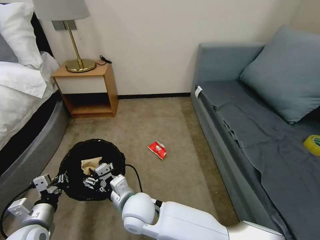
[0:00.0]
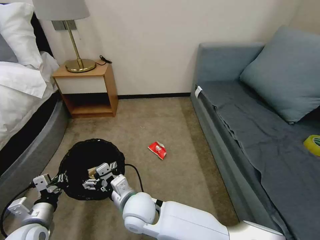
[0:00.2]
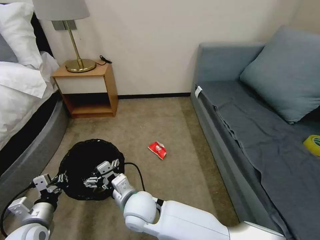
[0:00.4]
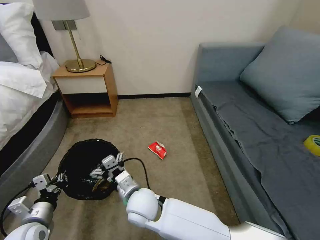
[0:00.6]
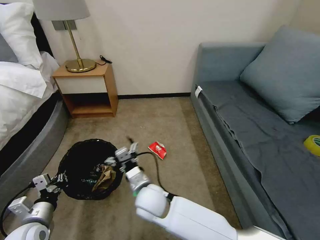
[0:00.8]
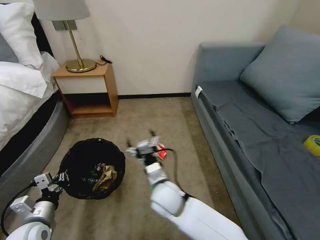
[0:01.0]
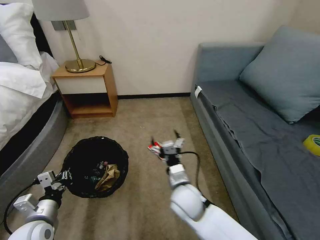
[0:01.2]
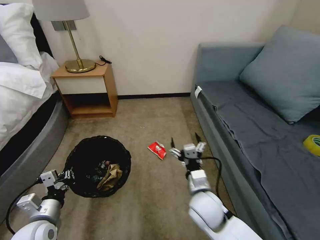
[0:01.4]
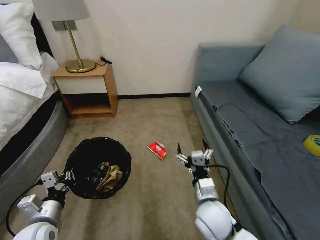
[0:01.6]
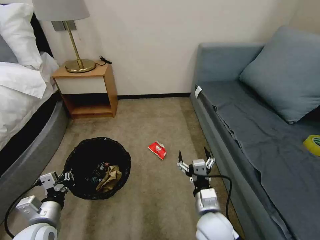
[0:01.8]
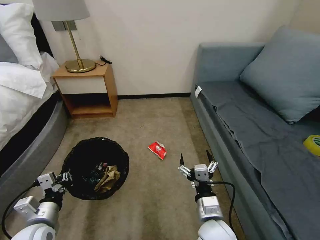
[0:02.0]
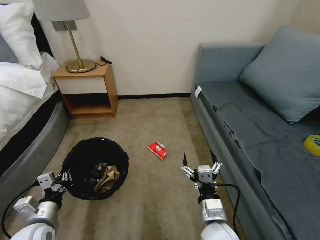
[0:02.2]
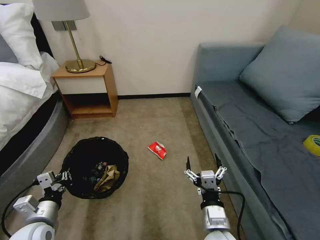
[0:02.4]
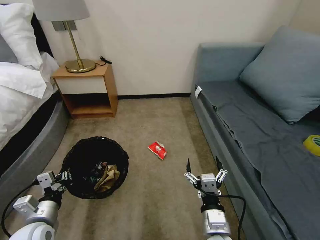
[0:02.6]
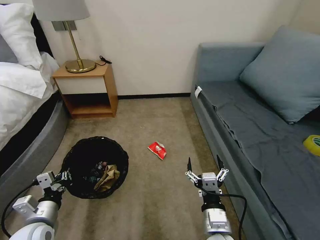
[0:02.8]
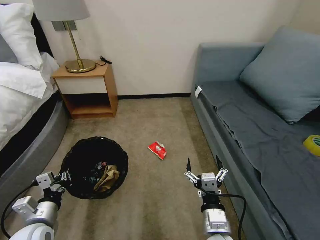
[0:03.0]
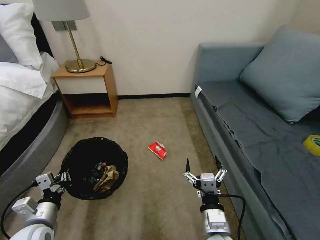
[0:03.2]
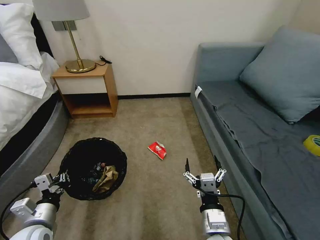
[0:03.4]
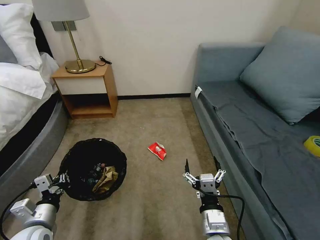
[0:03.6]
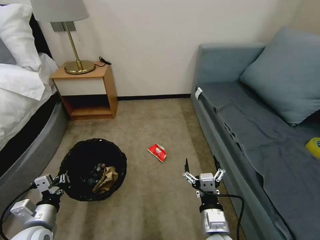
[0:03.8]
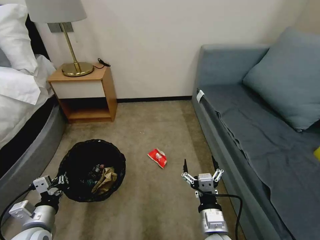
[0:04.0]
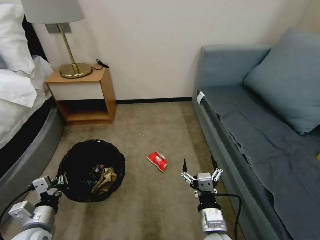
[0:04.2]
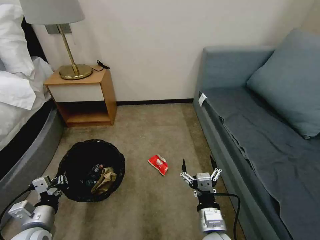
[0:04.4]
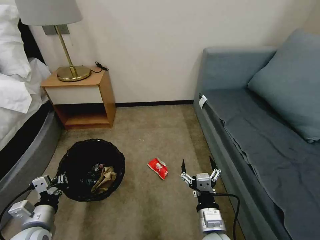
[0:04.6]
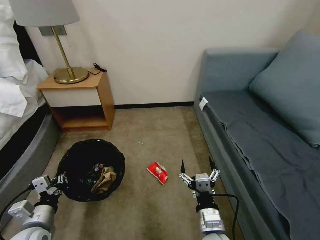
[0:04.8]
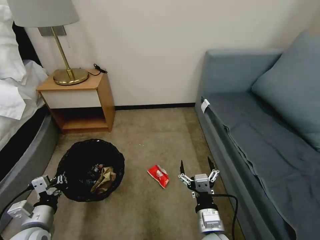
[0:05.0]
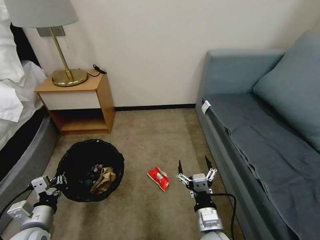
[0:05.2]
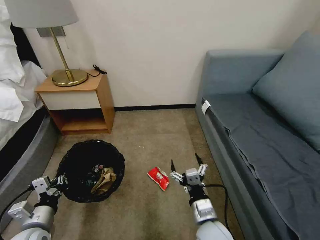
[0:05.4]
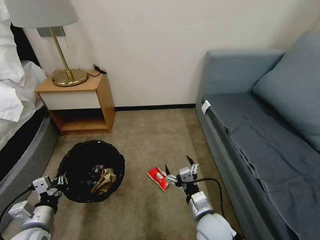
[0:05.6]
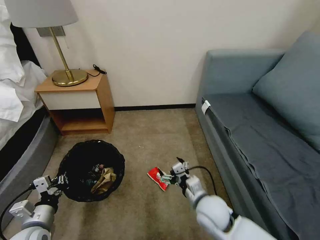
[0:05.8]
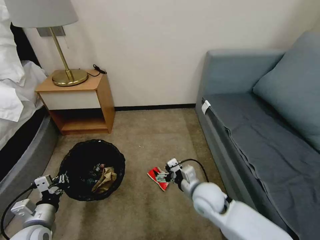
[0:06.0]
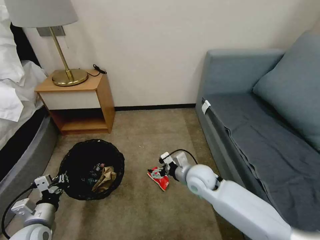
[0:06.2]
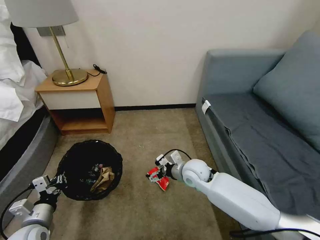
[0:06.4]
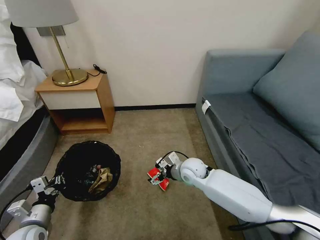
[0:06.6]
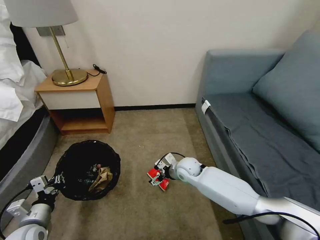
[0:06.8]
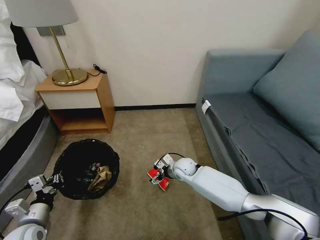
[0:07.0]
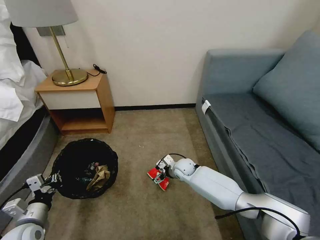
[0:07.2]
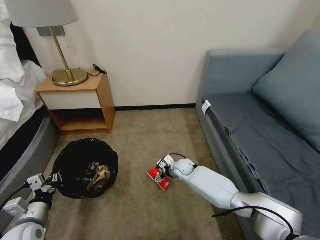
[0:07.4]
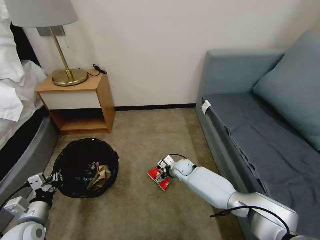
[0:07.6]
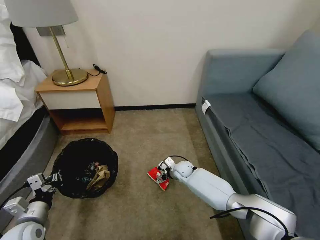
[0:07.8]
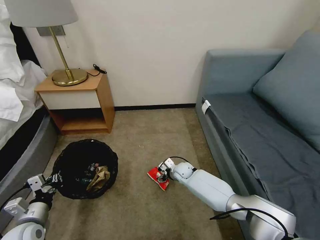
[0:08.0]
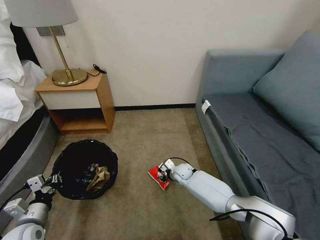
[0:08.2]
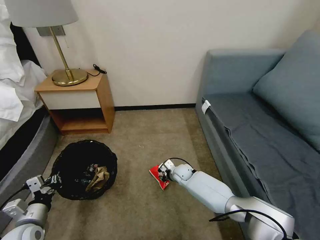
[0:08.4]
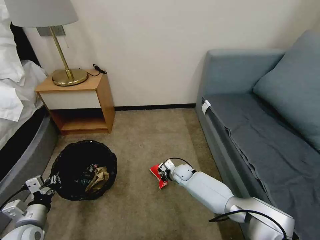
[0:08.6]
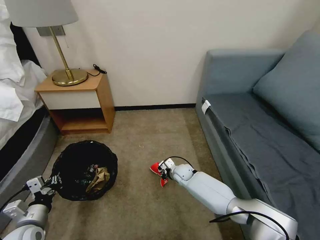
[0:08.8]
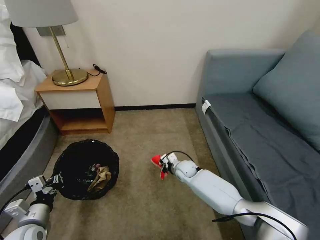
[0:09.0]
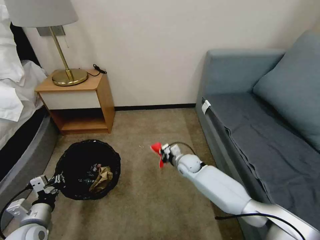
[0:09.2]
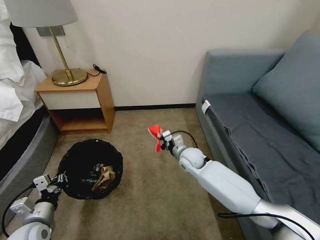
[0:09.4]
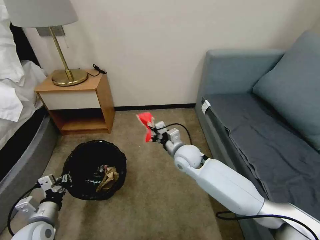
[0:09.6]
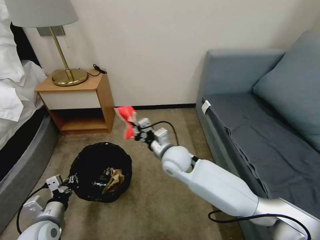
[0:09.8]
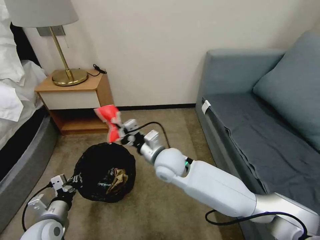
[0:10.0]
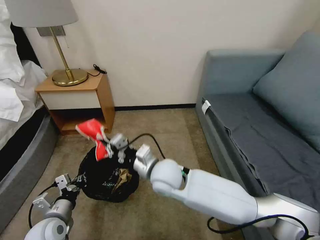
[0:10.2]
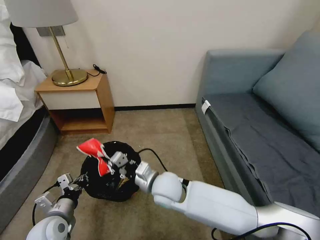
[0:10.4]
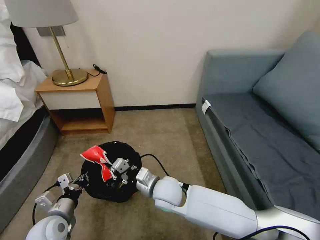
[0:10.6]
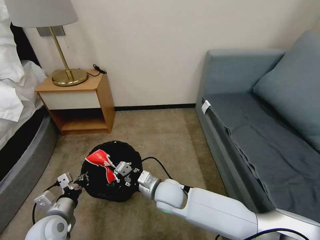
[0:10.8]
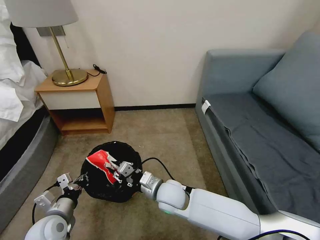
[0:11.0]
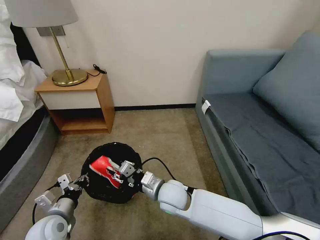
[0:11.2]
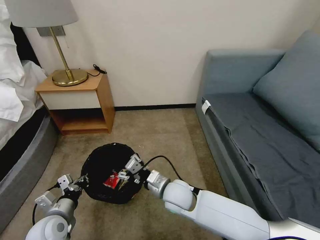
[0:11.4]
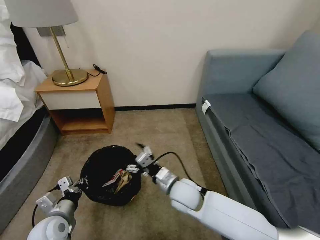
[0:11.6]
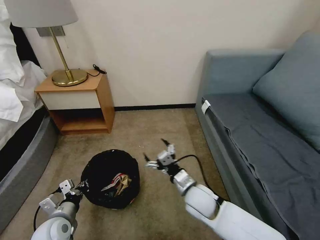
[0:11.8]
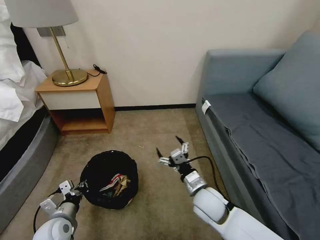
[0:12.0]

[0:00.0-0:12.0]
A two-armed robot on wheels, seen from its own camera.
Task of the whole recording: Pick up the trash bin, then pick up the garbage on the floor and place it into the trash bin.
0.0 to 1.6 s: The right gripper moves to the right, approximately 20 cm.
1.6 to 3.0 s: The right gripper heads backward, covering roughly 10 cm.
4.4 to 6.0 s: The right gripper goes approximately 15 cm forward.
6.0 to 7.6 s: The right gripper moves forward and downward, roughly 25 cm.
7.6 to 9.0 s: The right gripper closes up.
9.0 to 10.4 s: The left gripper travels to the right by approximately 5 cm; the right gripper travels upward, backward and to the left by approximately 25 cm.
10.4 to 12.0 s: The right gripper shifts roughly 15 cm to the right, and opens.

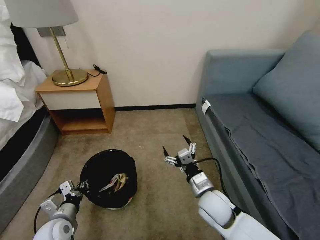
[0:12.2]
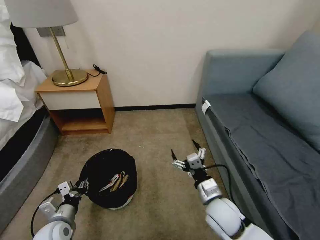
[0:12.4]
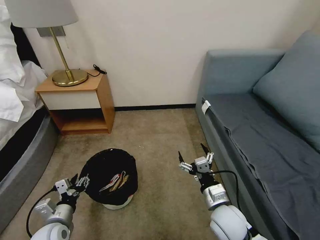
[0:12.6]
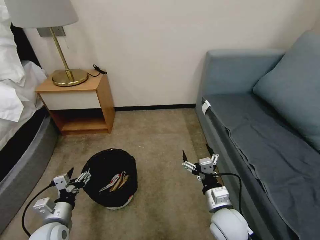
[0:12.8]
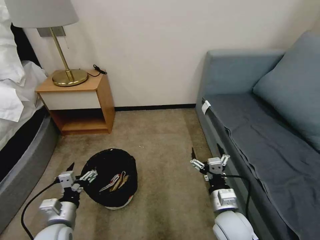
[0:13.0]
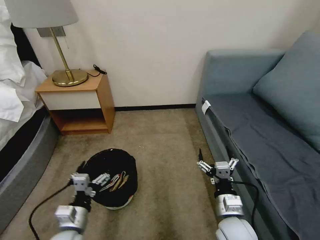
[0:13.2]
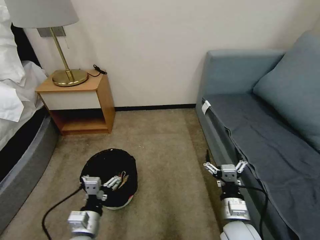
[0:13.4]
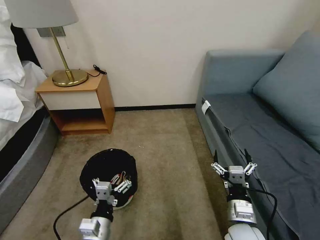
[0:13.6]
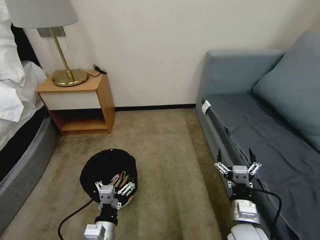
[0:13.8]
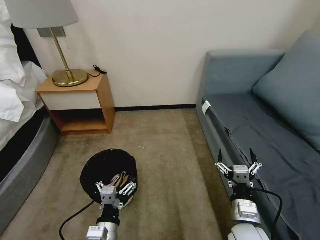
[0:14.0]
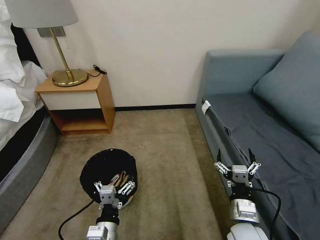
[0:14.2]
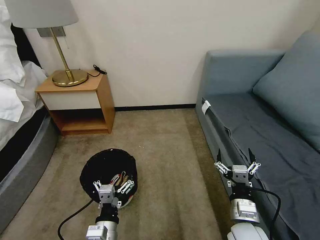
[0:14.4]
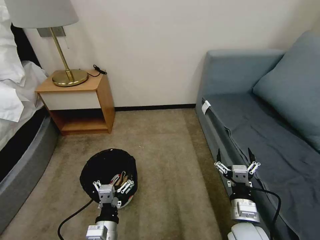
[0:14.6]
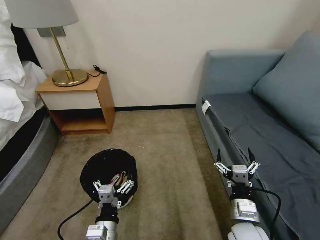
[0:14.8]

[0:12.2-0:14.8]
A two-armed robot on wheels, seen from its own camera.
Task of the whole recording: Pick up the trash bin, then pick up the garbage on the floor and place it into the trash bin.
12.2 to 13.4 s: The left gripper shifts roughly 15 cm to the right and backward, and opens its fingers, while the right gripper is displaced backward and to the right by some 10 cm.
13.4 to 14.8 s: The left gripper heads to the right, covering approximately 5 cm.

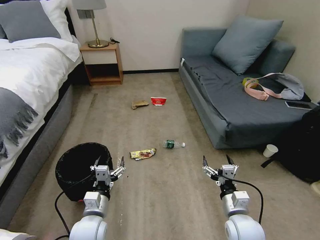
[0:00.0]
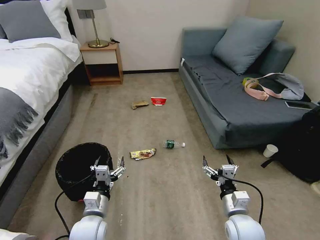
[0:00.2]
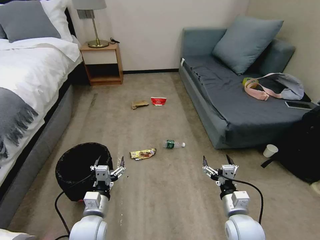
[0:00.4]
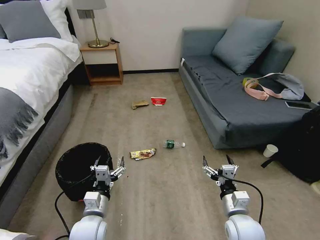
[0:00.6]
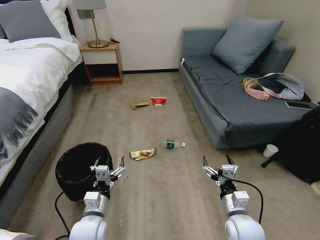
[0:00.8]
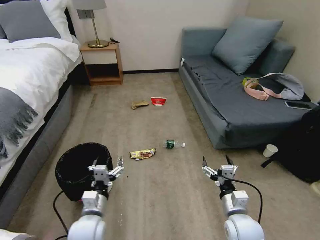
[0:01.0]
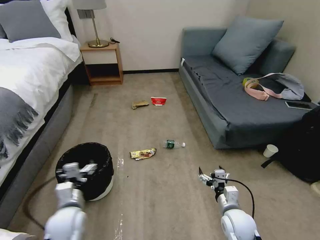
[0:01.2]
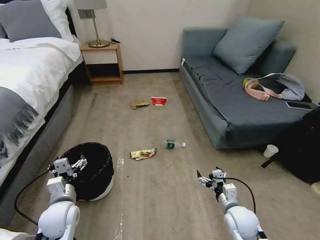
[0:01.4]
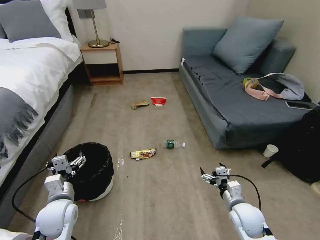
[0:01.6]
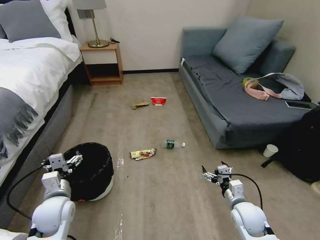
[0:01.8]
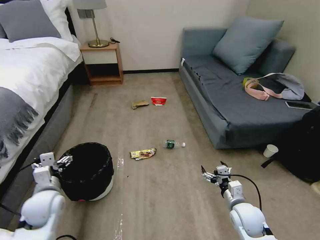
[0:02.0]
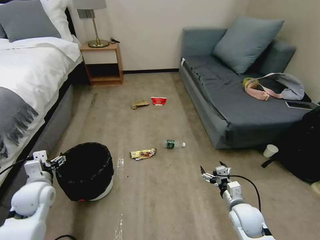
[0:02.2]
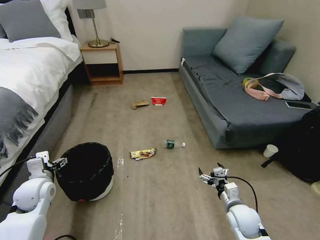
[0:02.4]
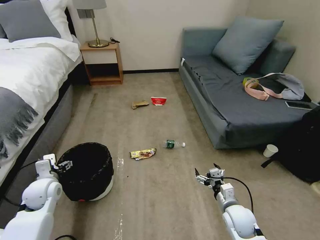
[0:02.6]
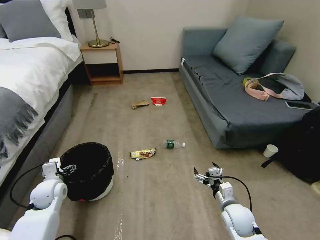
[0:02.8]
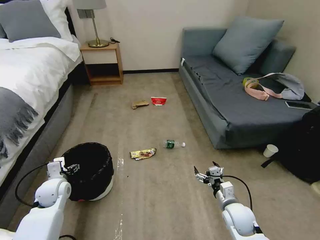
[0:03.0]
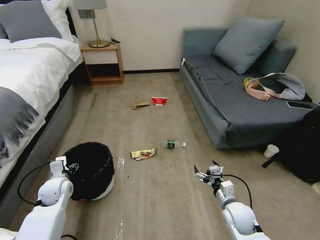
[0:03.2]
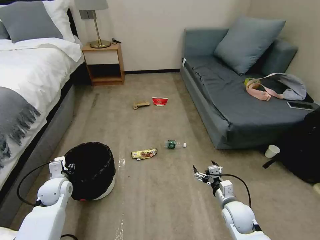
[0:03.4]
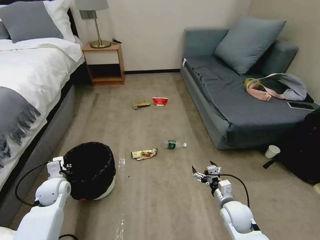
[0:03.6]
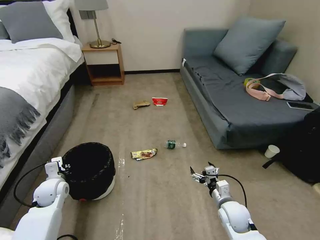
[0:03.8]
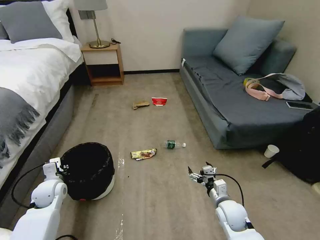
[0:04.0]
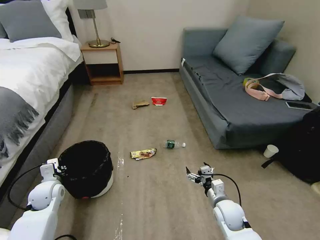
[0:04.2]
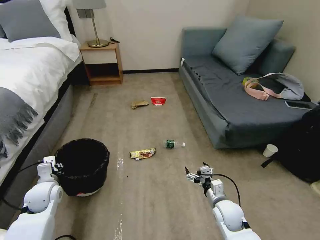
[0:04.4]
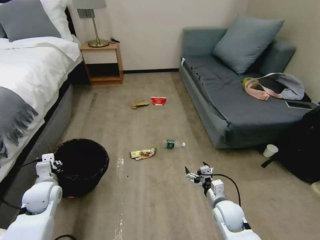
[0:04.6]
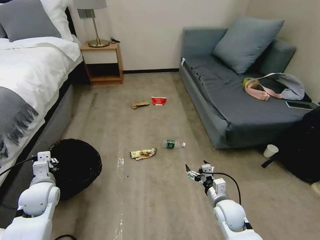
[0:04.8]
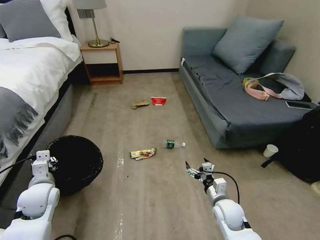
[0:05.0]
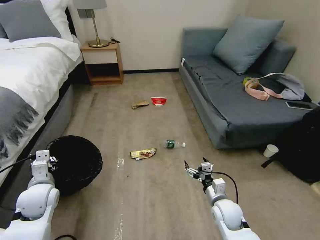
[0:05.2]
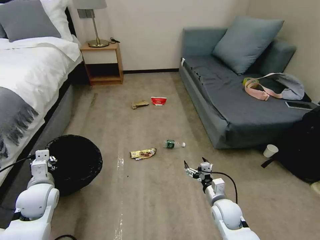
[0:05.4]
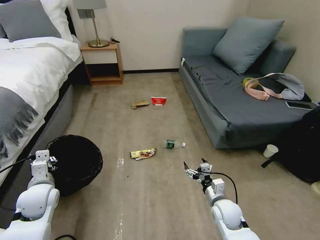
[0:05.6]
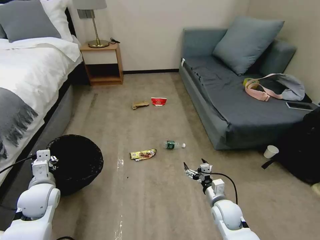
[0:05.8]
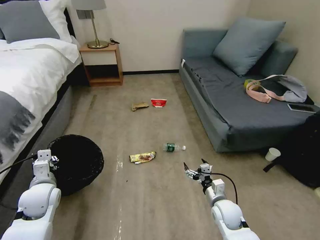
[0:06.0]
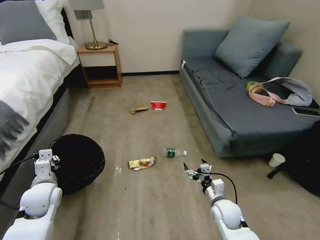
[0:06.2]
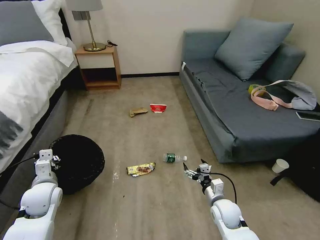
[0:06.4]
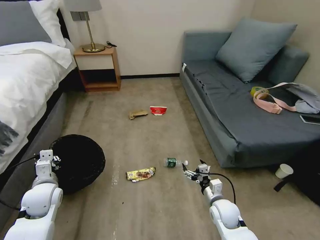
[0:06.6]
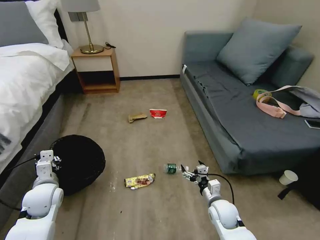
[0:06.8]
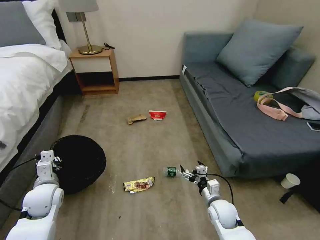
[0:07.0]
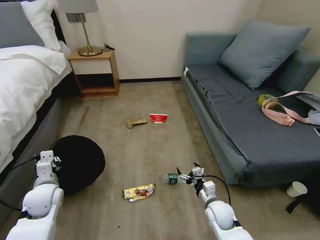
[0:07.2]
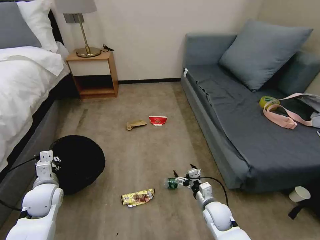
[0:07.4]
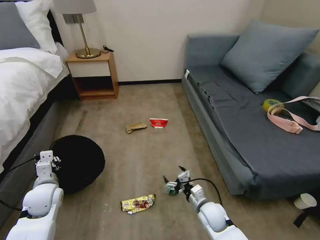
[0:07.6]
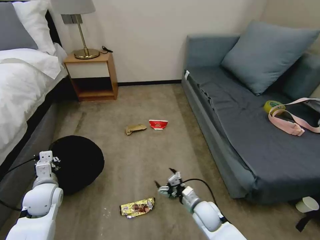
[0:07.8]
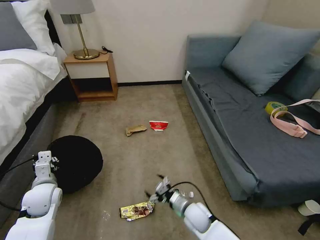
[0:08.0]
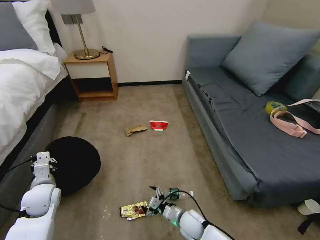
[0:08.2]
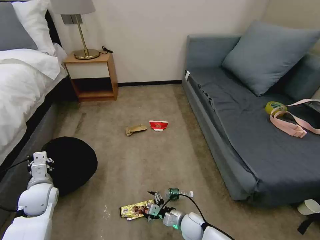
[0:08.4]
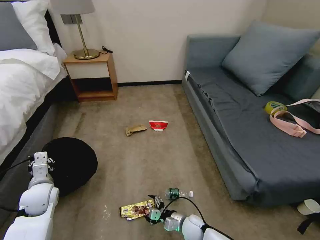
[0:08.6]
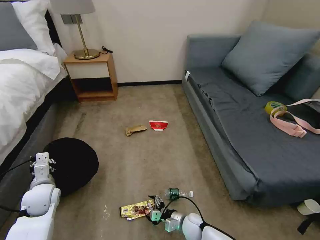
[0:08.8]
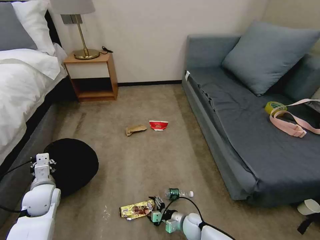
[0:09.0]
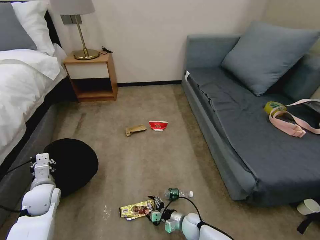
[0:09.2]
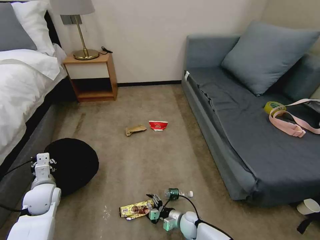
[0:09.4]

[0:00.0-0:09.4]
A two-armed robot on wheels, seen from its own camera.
Task of the whole recording: Pick up the trash bin, then pick up the garbage on the floor and place it into the trash bin.
1.6 to 3.2 s: The left gripper is displaced forward and to the left by some 10 cm.
3.2 to 4.8 s: The left gripper changes place by approximately 5 cm, and closes up.
6.2 to 7.8 s: The right gripper goes some 5 cm to the left.
7.8 to 9.4 s: The right gripper is displaced downward by some 15 cm.
